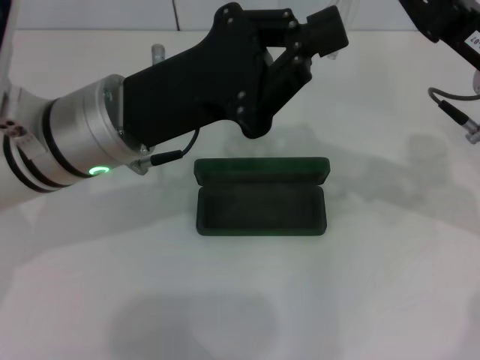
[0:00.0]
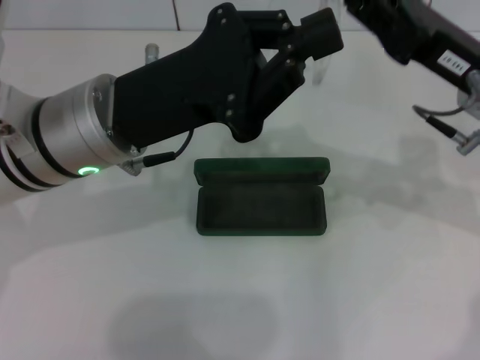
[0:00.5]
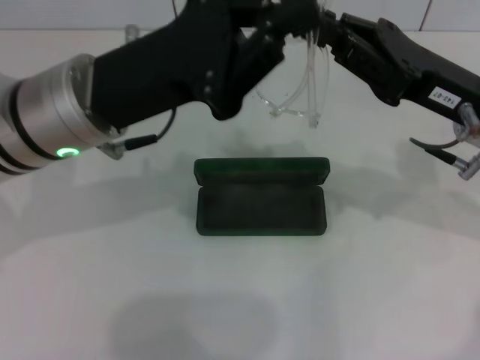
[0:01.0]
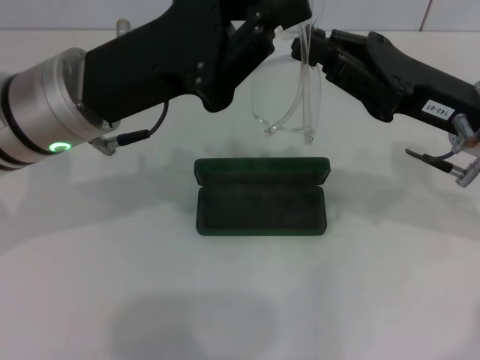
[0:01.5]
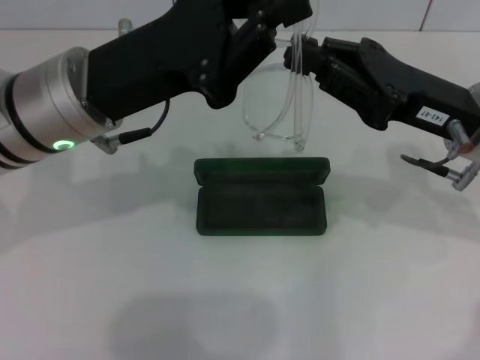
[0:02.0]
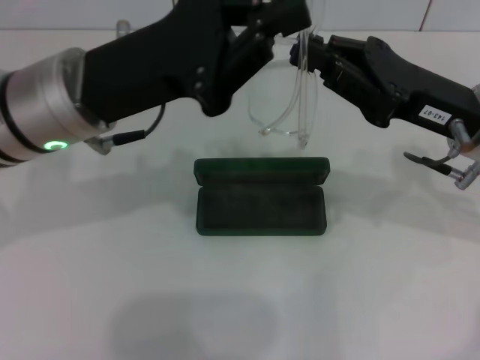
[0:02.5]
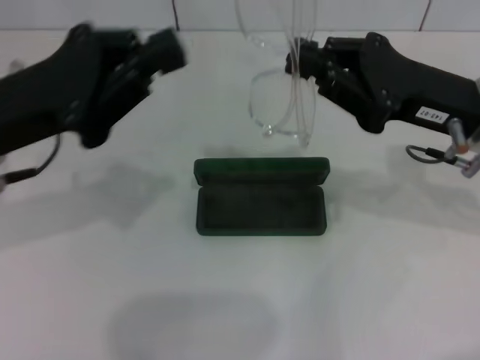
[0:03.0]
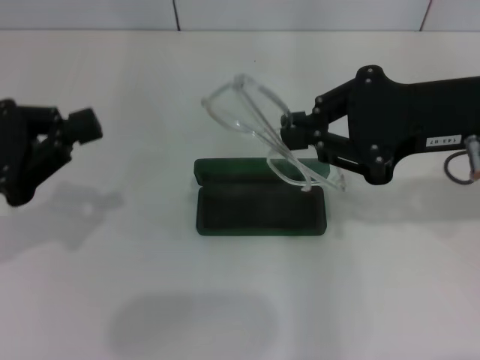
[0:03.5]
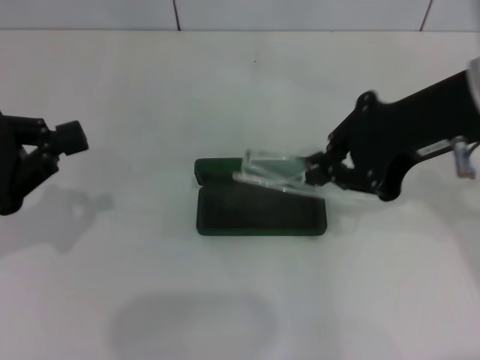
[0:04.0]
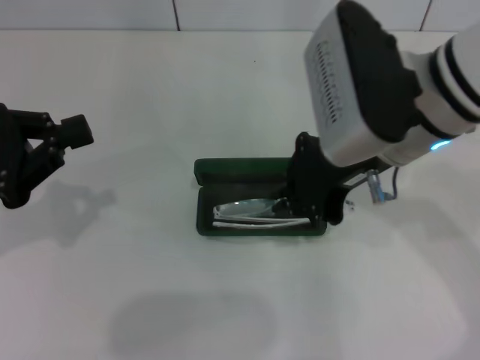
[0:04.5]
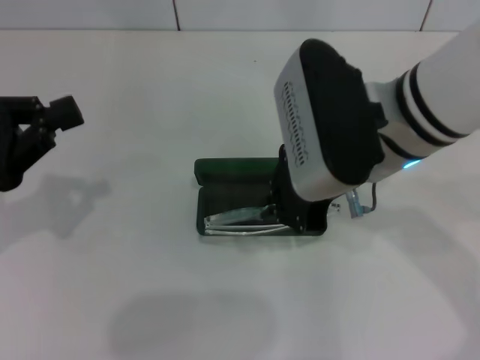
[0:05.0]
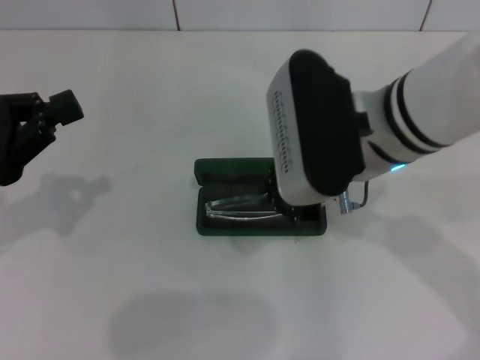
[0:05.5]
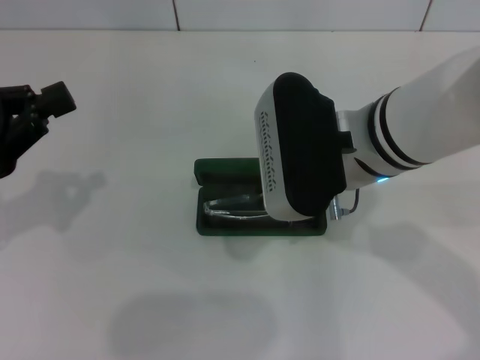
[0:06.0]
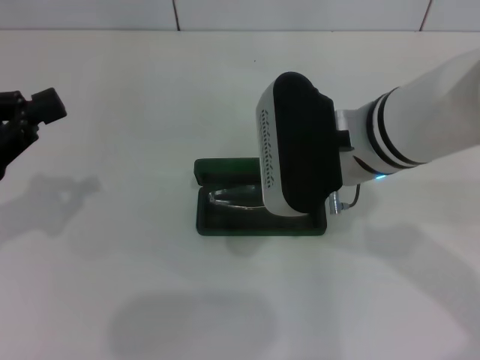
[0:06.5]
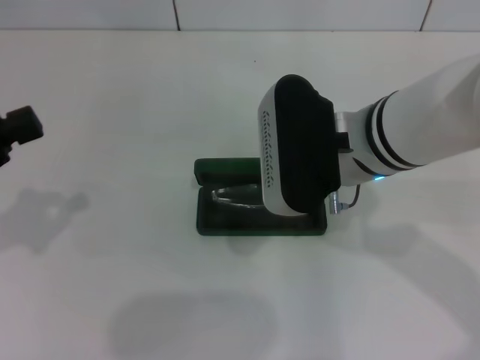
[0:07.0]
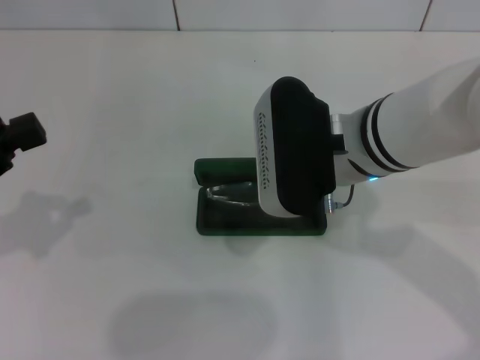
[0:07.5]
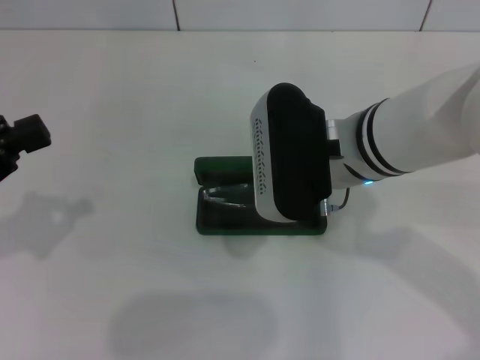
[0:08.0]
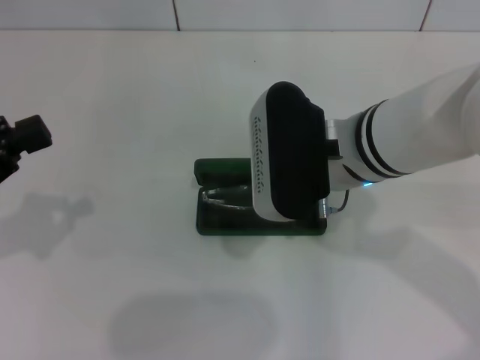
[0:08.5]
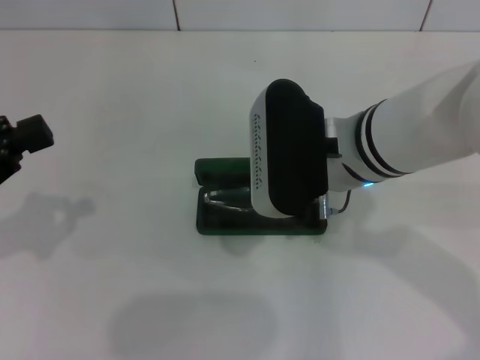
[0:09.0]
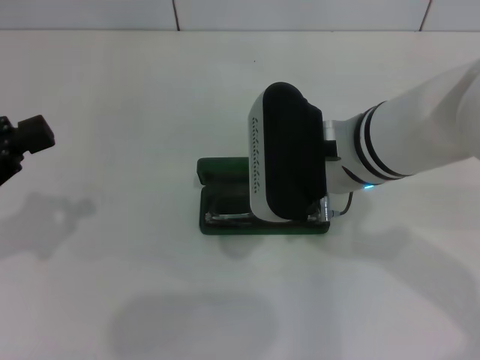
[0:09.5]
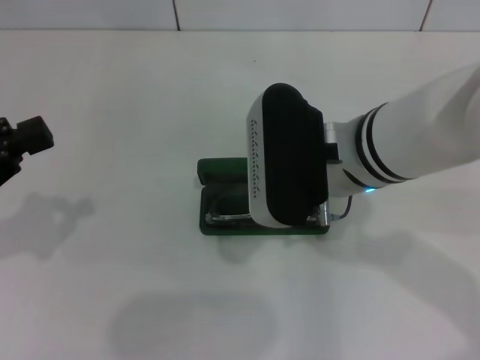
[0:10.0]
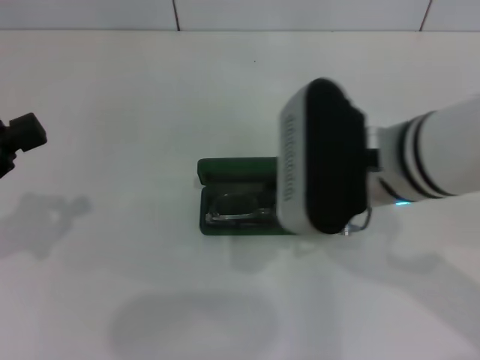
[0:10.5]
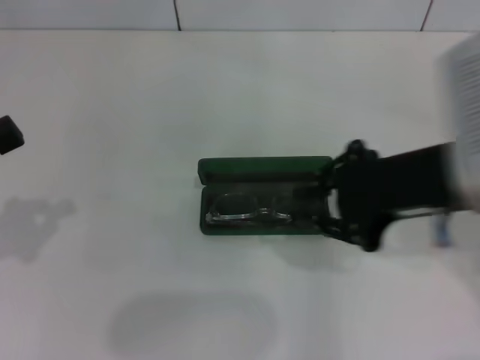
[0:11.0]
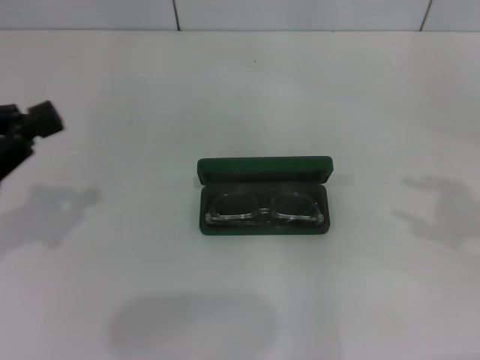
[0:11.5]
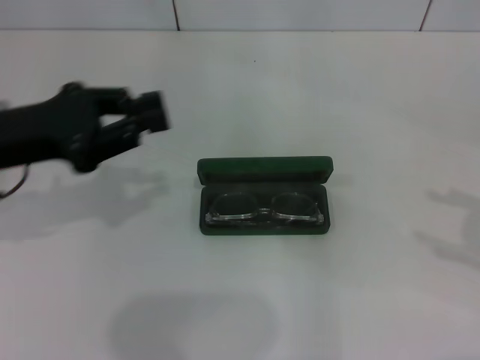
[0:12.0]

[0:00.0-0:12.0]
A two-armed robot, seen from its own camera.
Step, 0:00.0 to 0:02.0: Lift the glasses with your right hand.
Step, 0:02.5 to 0:10.0: Put the glasses into the case with your right hand.
0:02.0 to 0:04.0: The right gripper moves upward, some 10 cm. The left gripper goes about 15 cm to the left.
0:04.0 to 0:06.0: The right gripper heads to the left and downward, covering about 10 cm.
0:06.0 to 0:08.0: There are only small adjustments of the grippers.
0:08.0 to 0:10.0: Both grippers stay put.
0:10.0 to 0:12.0: The right gripper goes approximately 35 cm to the right, and opens its fingers. The left gripper shifts approximately 10 cm to the right and forward.

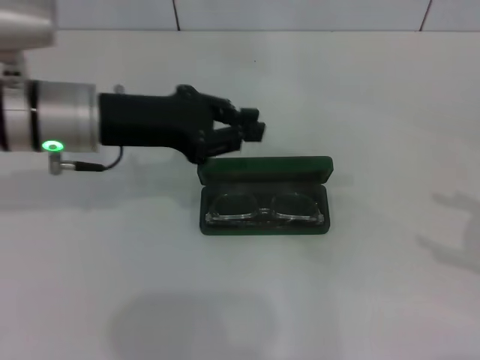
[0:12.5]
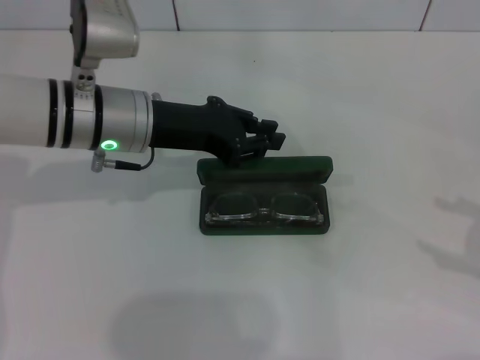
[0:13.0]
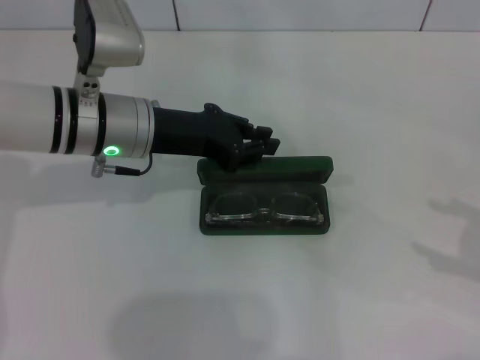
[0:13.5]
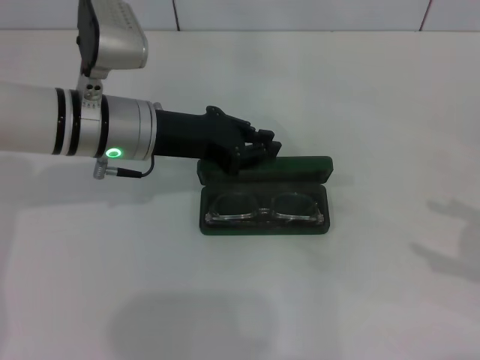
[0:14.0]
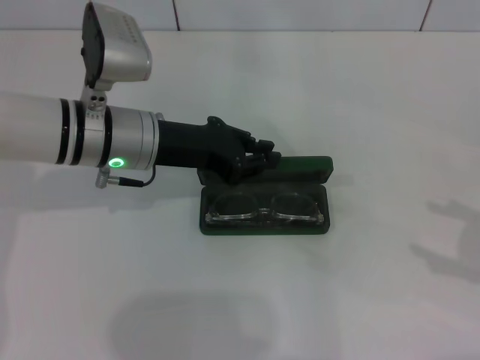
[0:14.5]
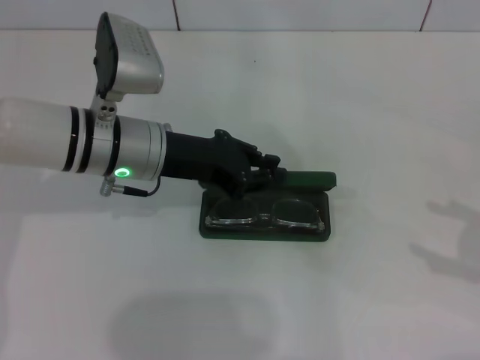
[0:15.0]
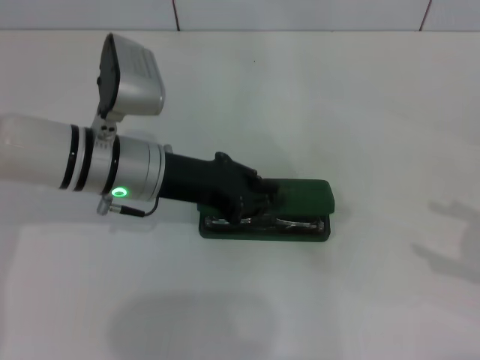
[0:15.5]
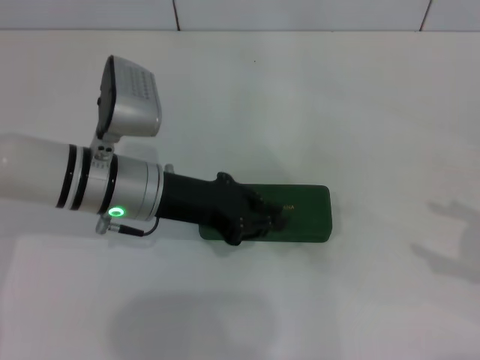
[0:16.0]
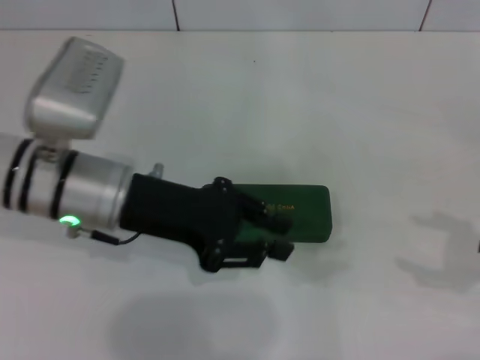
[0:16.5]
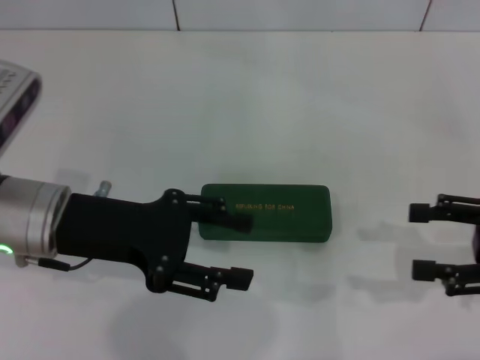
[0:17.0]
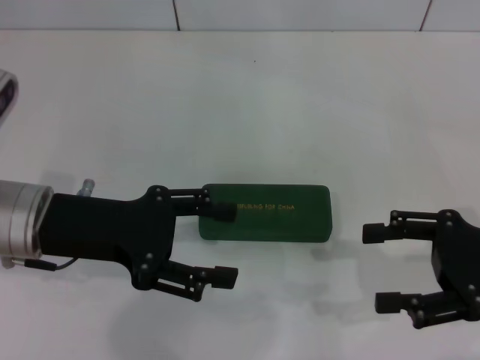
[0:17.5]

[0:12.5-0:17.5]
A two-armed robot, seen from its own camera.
Step, 0:12.5 to 0:15.5: Close the glasses case with your left hand.
0:12.5 to 0:15.0: The left gripper shifts by about 5 cm.
0:15.0 to 0:17.5: The left gripper heads to the left and backward, covering some 10 cm, and opens up, while the right gripper travels to the left by some 10 cm.

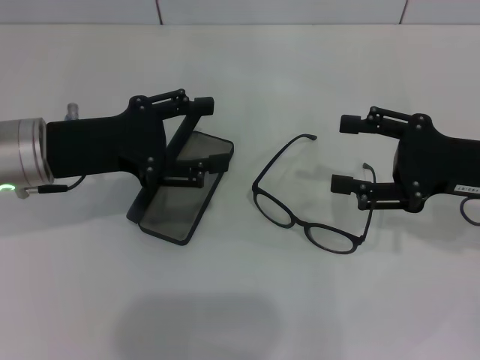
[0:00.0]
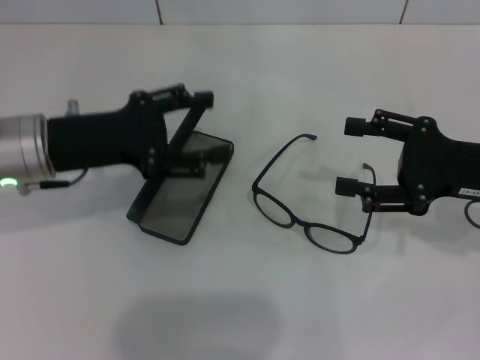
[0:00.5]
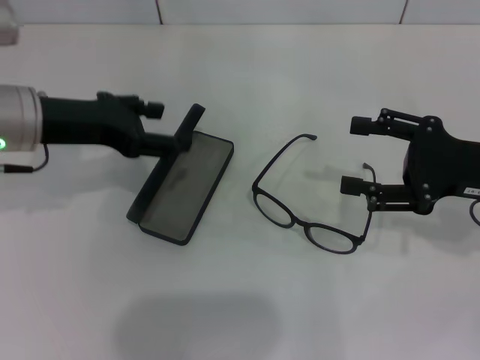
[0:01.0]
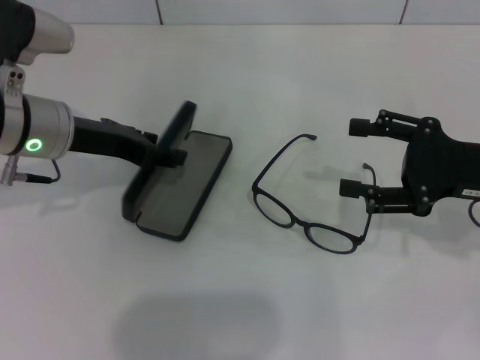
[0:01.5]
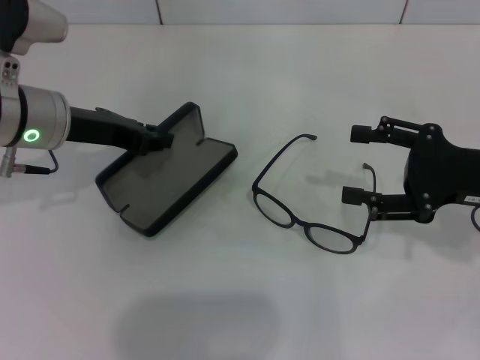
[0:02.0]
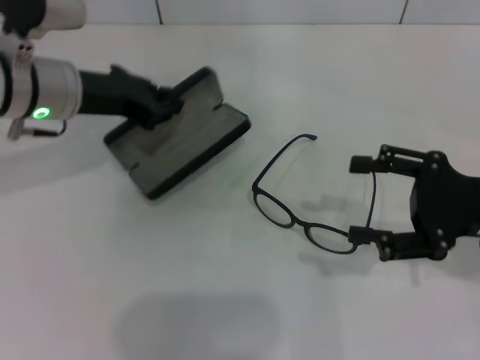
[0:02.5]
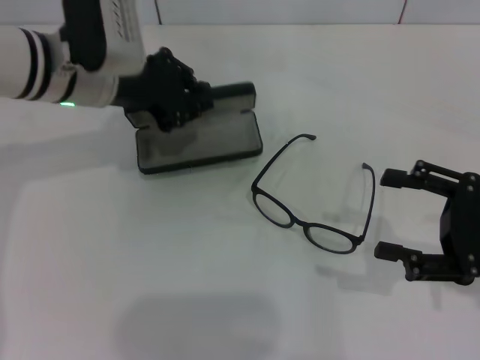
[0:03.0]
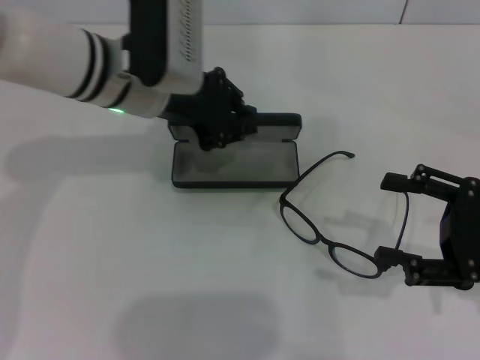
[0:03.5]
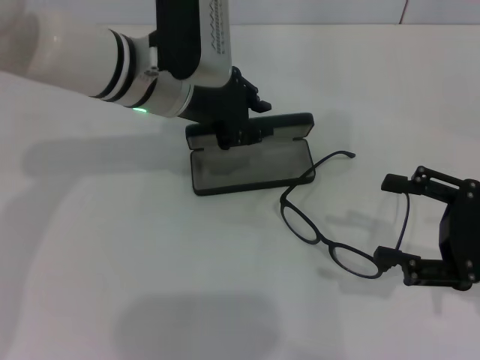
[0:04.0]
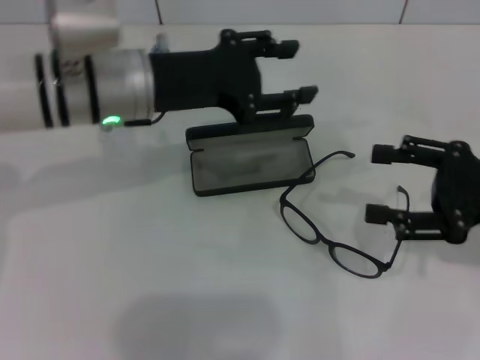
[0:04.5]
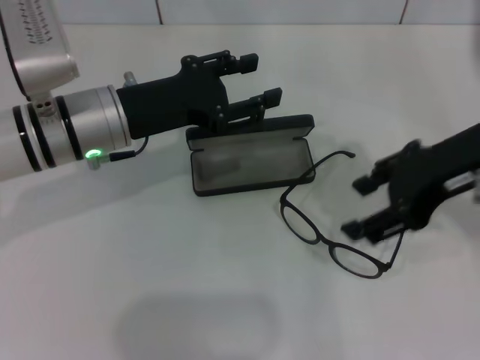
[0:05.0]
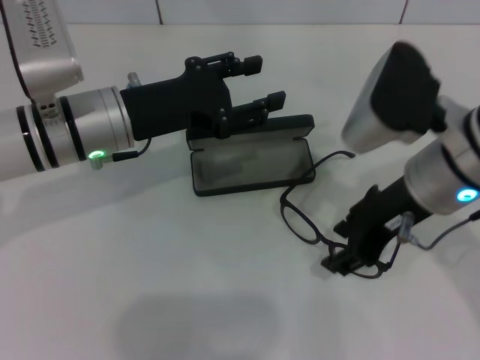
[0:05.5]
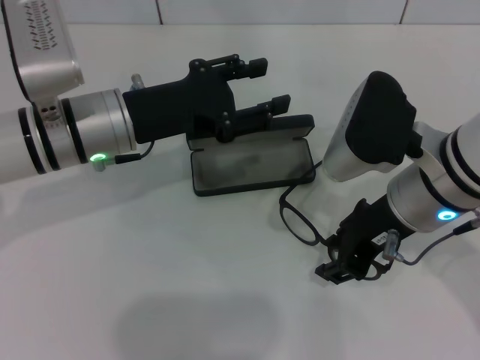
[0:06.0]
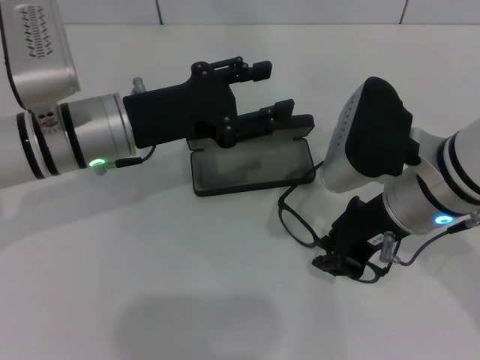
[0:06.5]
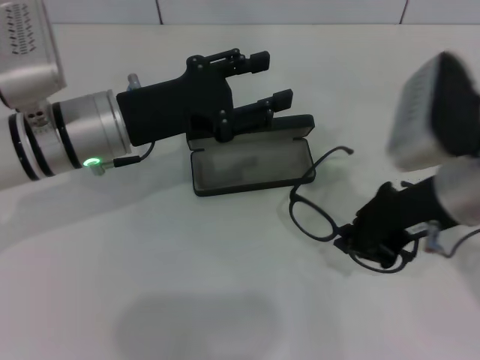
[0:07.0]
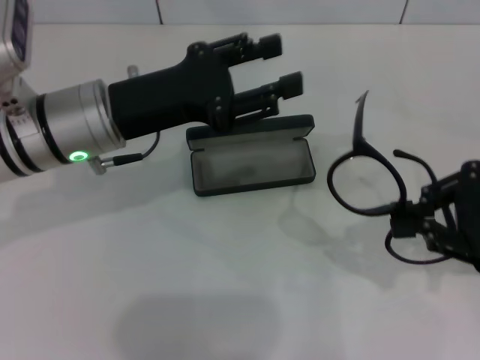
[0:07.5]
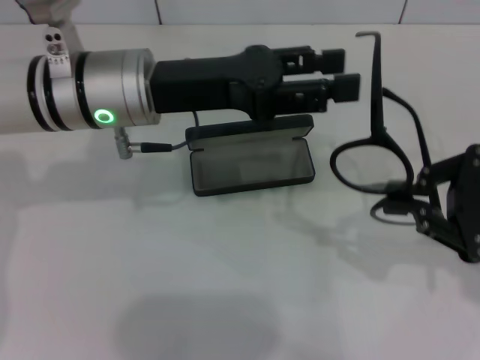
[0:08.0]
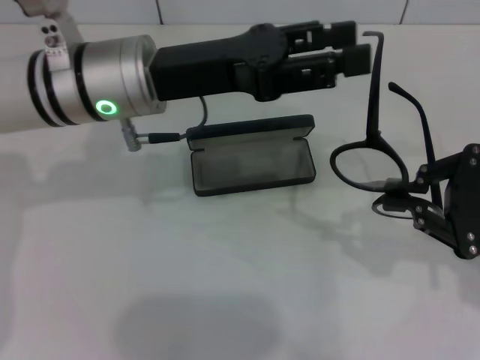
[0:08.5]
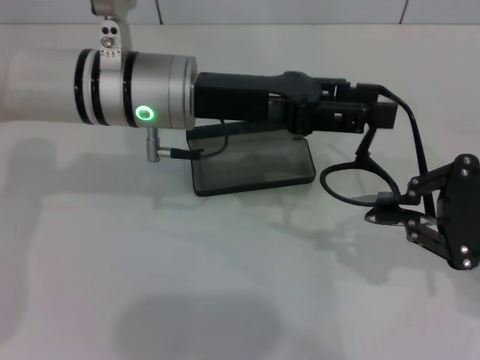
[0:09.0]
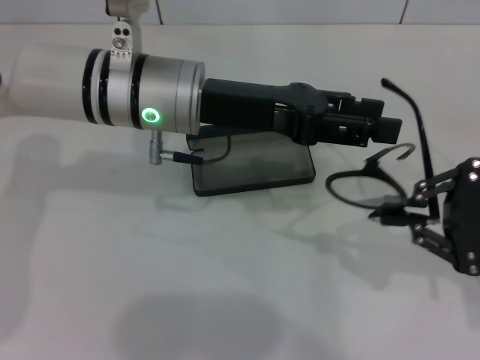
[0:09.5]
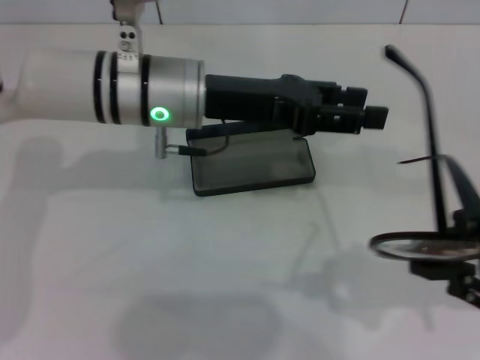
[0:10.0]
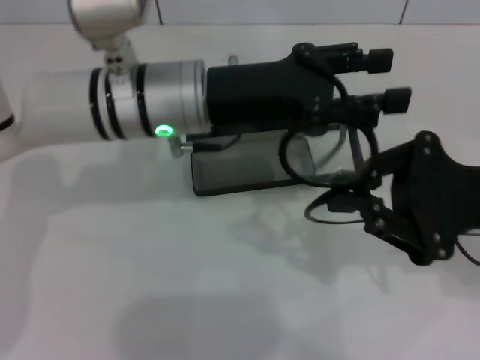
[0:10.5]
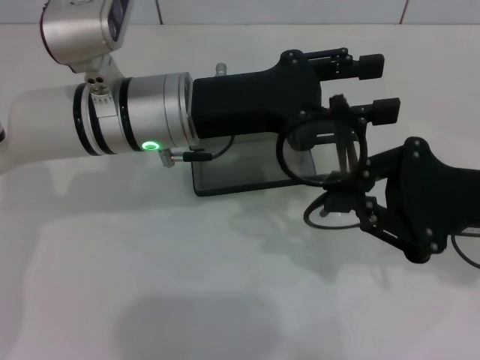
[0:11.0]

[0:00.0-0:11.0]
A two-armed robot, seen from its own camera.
Step, 0:00.0 to 0:02.0: Grab the glasses case with your left hand.
Step, 0:02.5 to 0:04.0: Place the glasses case in the center of the table with your left hand.
Step, 0:04.5 to 0:06.5: Grab the eyeglass frame with your right hand.
0:00.0 to 0:02.0: The left gripper closes.
0:02.0 to 0:03.5: The right gripper heads backward, covering roughly 5 cm. Meanwhile the left gripper goes some 10 cm to the right.
0:03.5 to 0:05.5: The left gripper shifts by roughly 5 cm, and opens its fingers; the right gripper travels to the left and upward by about 15 cm.
0:05.5 to 0:07.5: The right gripper travels to the right by approximately 15 cm, and closes its fingers.
0:07.5 to 0:09.0: The left gripper moves to the right, some 5 cm.
0:09.0 to 0:11.0: The right gripper moves about 5 cm.
